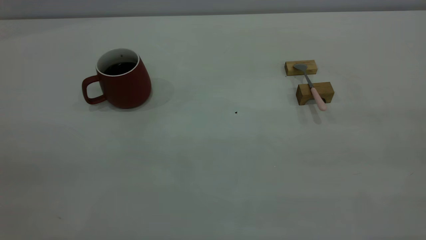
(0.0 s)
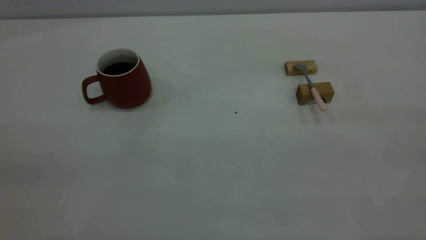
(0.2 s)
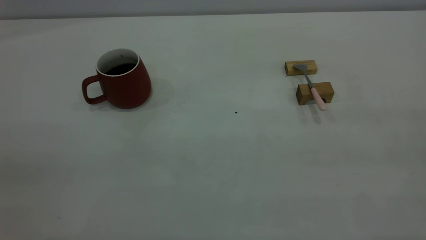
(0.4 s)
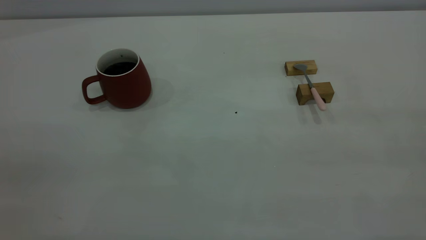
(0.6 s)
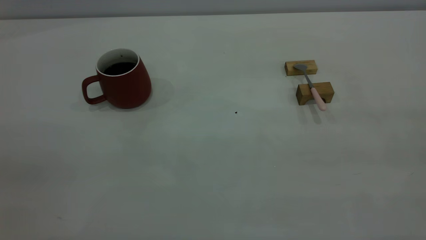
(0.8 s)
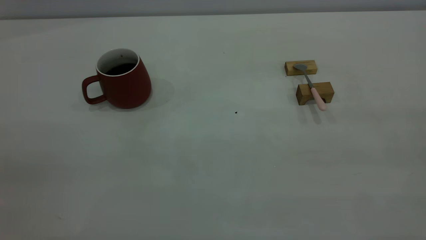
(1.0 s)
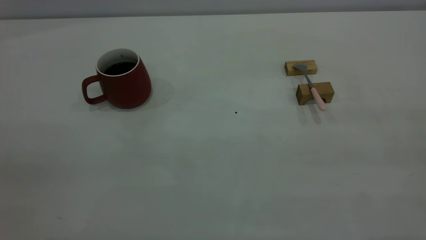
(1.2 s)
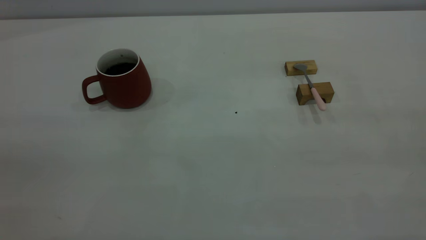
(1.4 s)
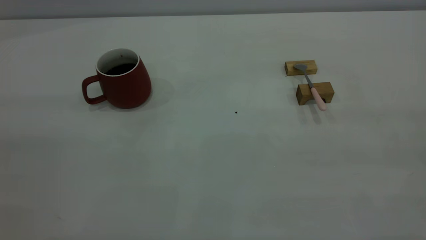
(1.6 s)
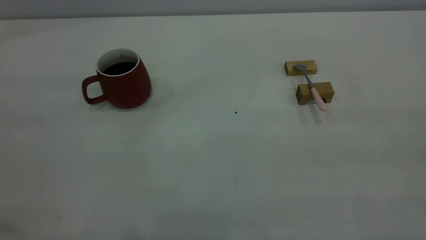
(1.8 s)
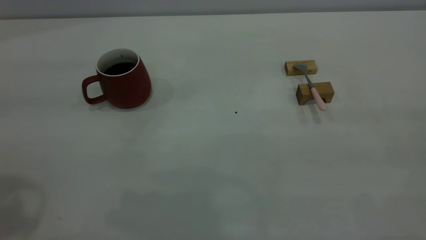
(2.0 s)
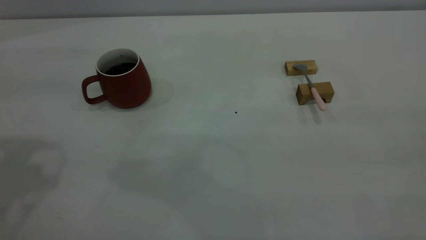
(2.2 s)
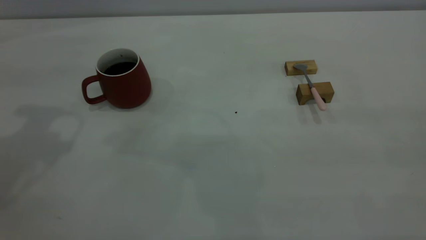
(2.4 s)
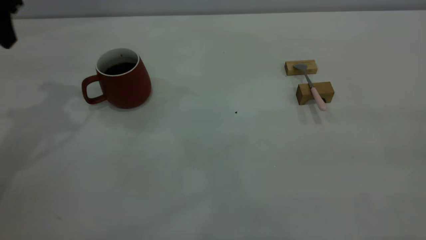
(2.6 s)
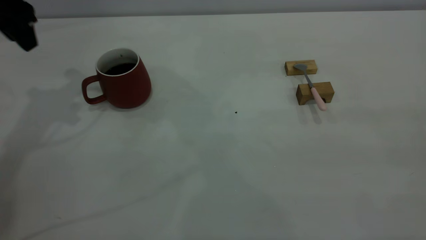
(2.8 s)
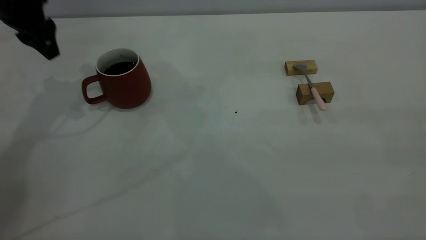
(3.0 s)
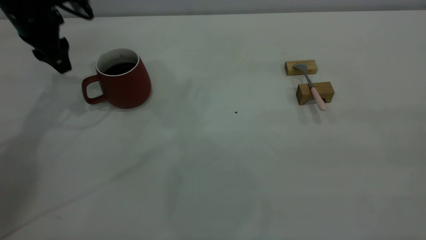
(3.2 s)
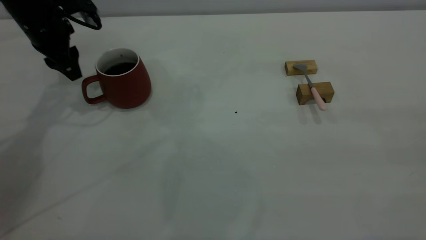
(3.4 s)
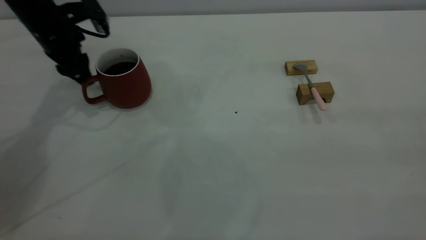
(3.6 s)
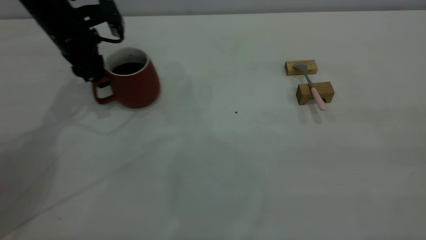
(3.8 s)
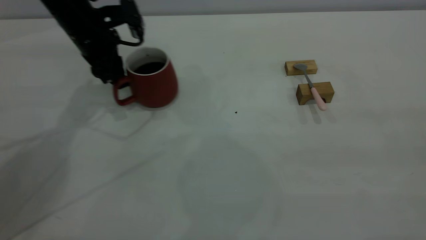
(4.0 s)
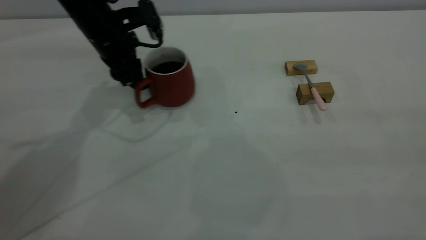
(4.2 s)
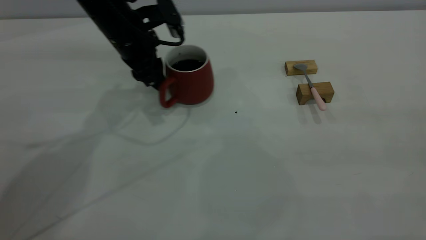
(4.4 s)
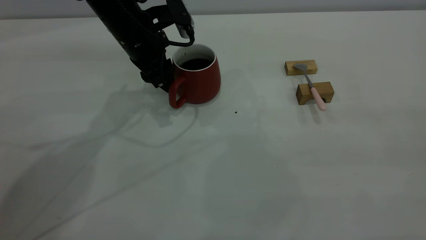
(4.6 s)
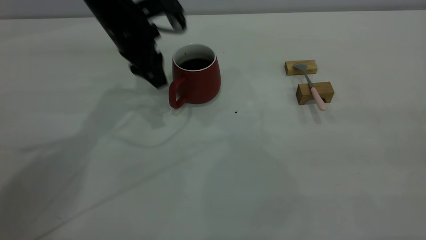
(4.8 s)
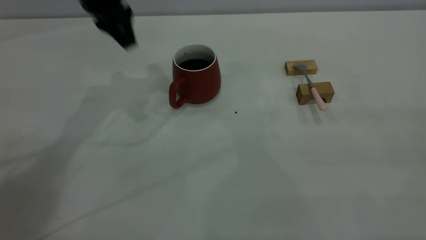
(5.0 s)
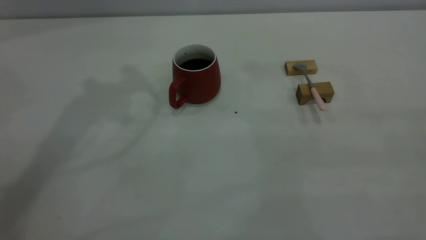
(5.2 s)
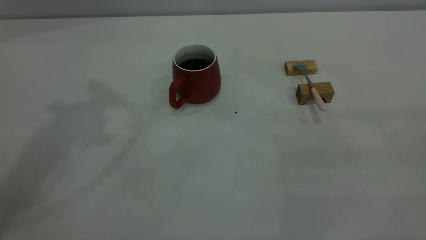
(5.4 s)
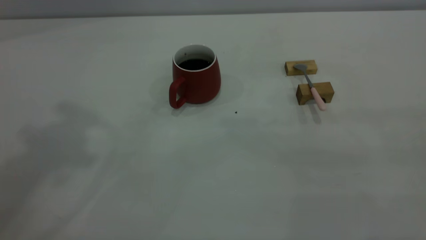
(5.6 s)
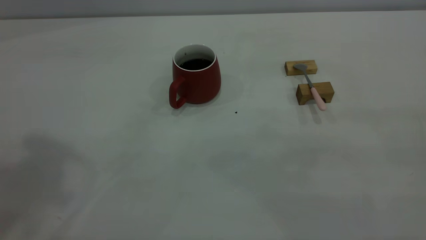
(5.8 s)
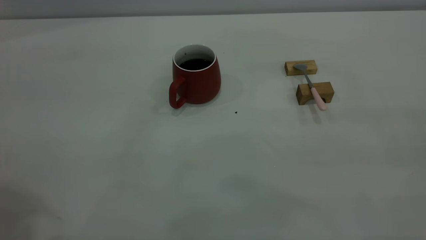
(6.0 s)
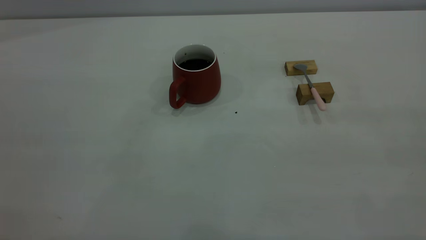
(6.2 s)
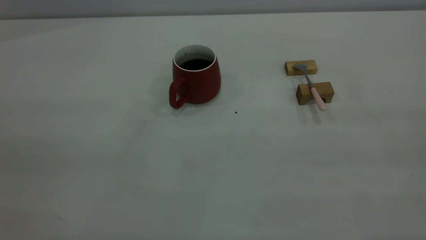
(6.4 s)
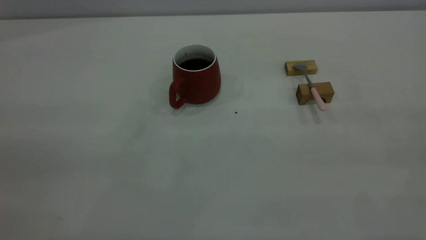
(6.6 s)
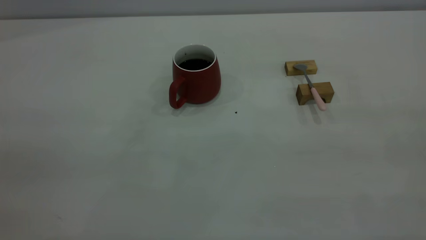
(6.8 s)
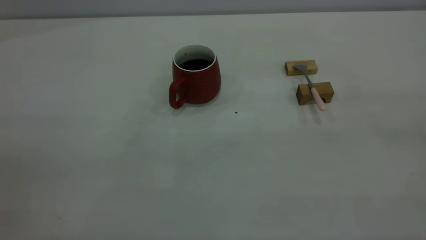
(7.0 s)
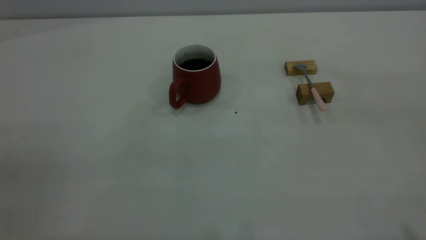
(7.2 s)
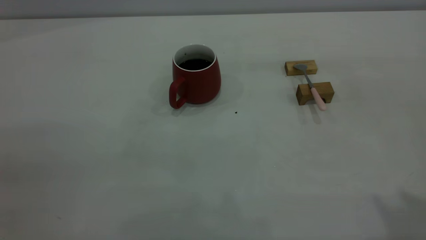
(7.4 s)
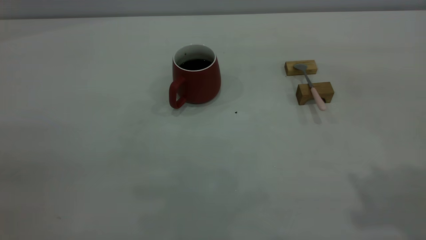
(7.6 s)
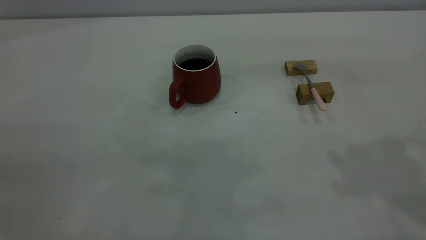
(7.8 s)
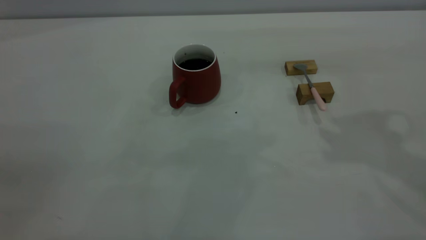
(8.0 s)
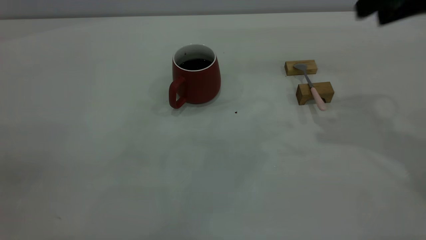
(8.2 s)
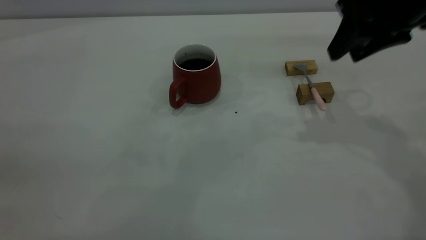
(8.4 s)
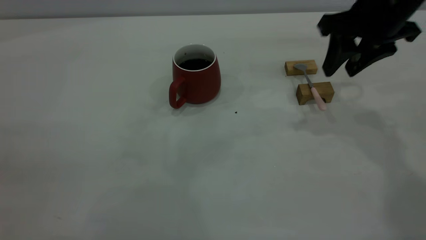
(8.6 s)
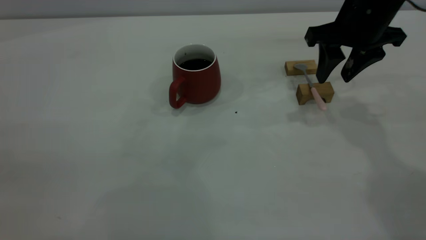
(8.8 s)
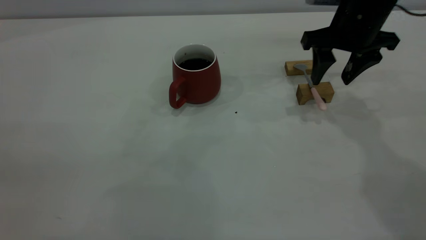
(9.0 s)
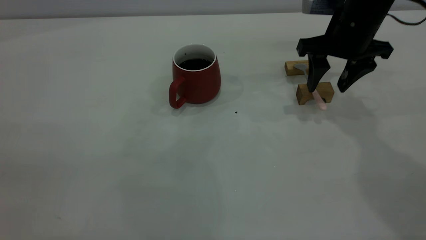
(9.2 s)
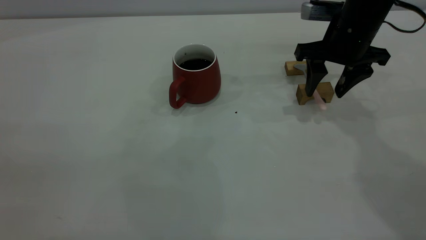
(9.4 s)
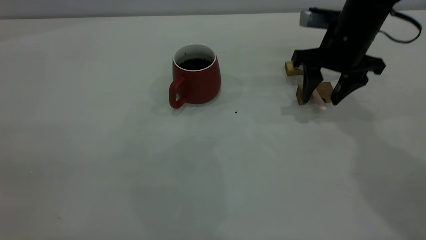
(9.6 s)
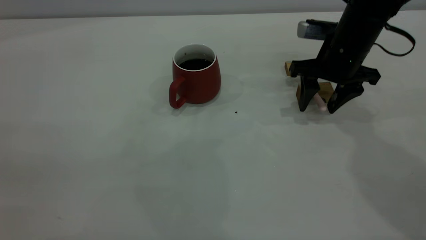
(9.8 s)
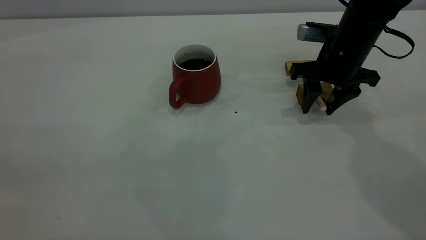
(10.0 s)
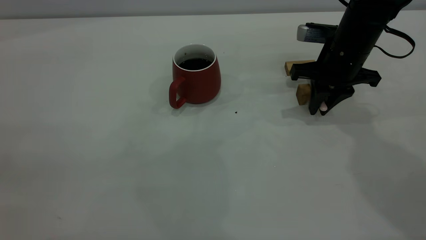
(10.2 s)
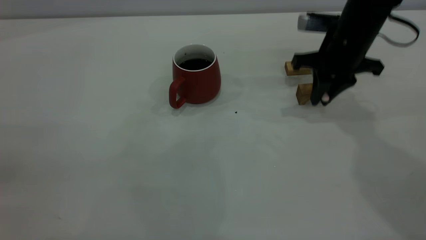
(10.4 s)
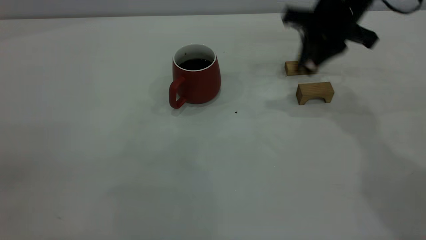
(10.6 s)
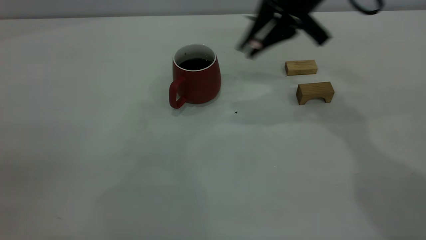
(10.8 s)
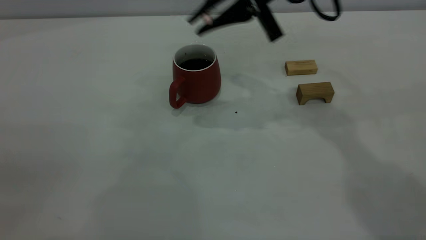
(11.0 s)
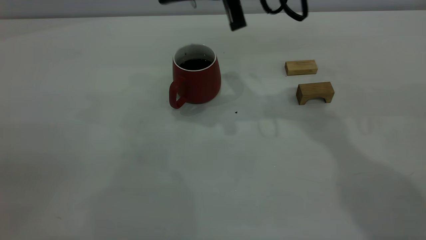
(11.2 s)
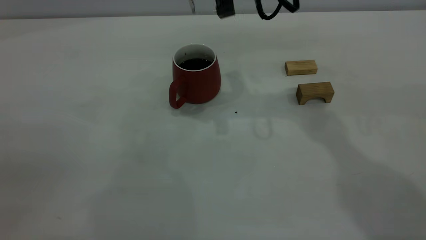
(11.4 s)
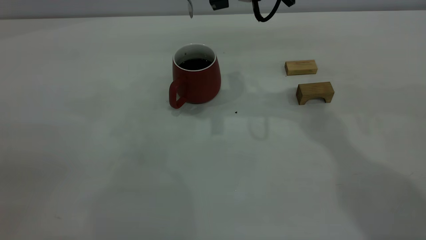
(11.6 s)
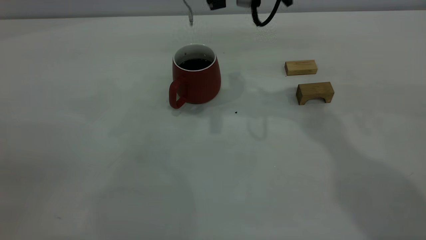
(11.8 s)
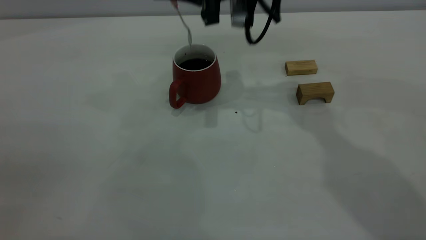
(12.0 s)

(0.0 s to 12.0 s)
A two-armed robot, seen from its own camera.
Step, 0.0 s - 4.8 s: Move the cup with coffee to the center of view.
Step, 5.0 s - 10.4 s: Pick up the spoon.
1.6 s - 3.0 s: The left gripper shifts roughly 40 cm forward and downward.
3.0 s - 4.4 s: The left gripper shifts some 15 cm to the right and downward.
4.4 s - 6.0 s: The left gripper travels backward and upward by some 40 cm.
7.6 s - 9.0 s: The right gripper shifts approximately 30 cm forward and downward.
9.0 s - 10.4 s: The right gripper closes up.
10.4 s - 12.0 s: The right gripper goes some 15 cm to the left.

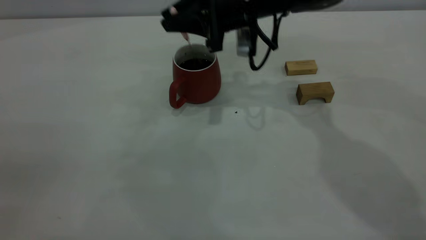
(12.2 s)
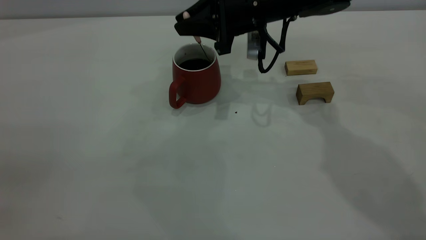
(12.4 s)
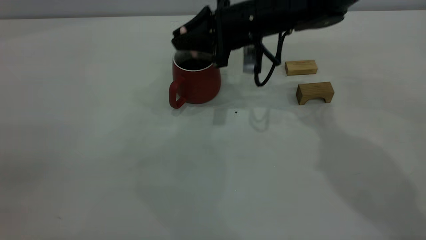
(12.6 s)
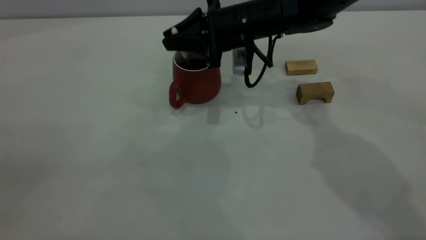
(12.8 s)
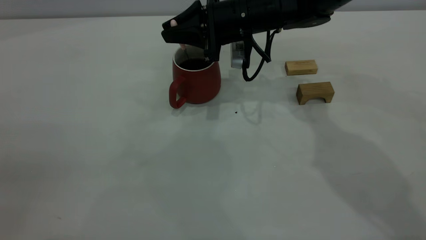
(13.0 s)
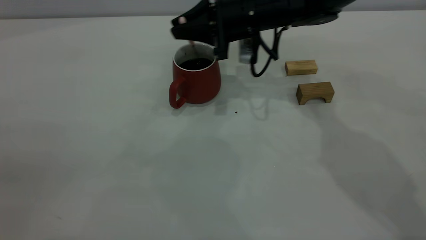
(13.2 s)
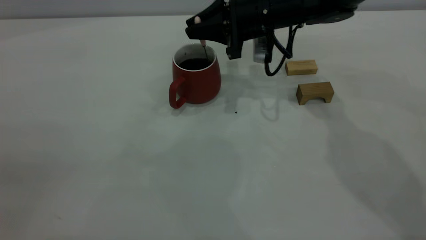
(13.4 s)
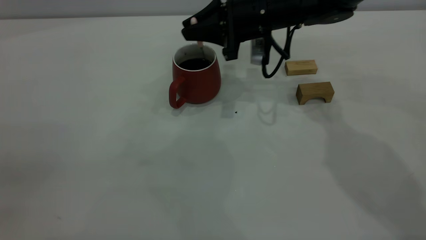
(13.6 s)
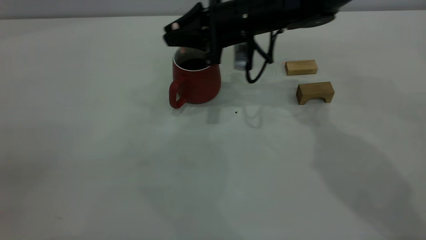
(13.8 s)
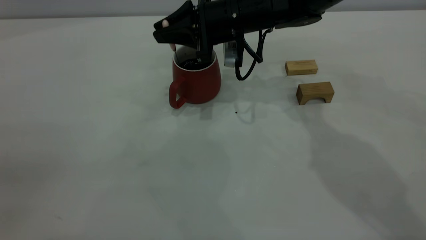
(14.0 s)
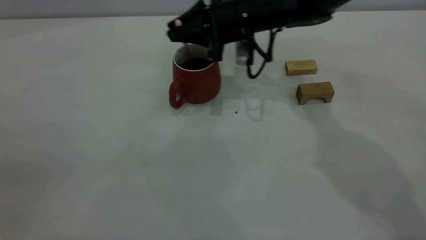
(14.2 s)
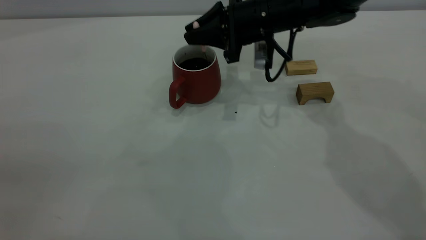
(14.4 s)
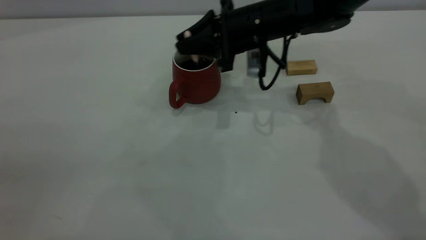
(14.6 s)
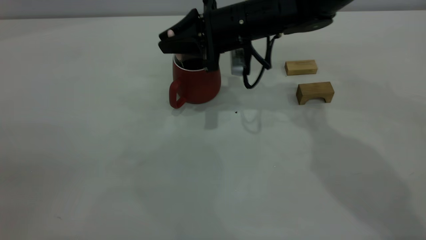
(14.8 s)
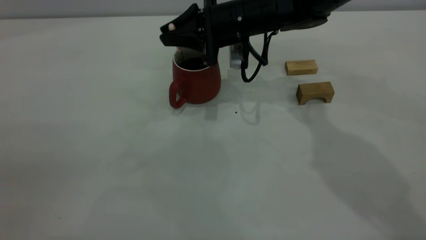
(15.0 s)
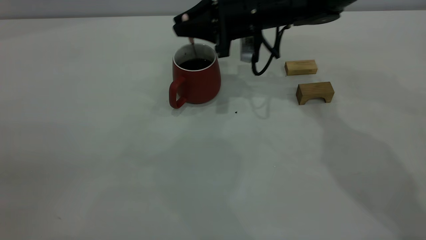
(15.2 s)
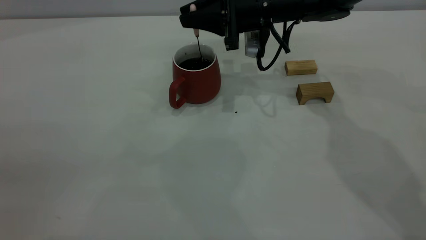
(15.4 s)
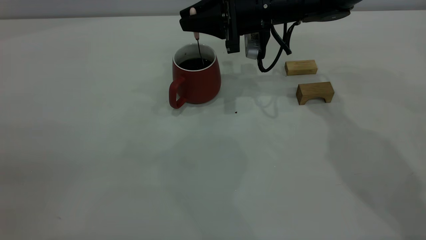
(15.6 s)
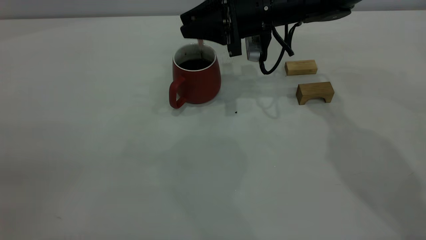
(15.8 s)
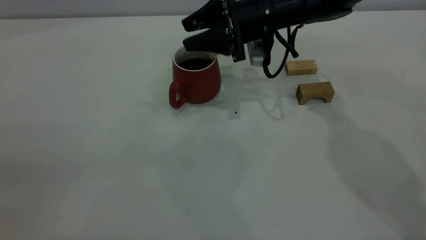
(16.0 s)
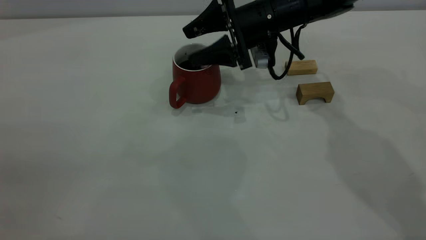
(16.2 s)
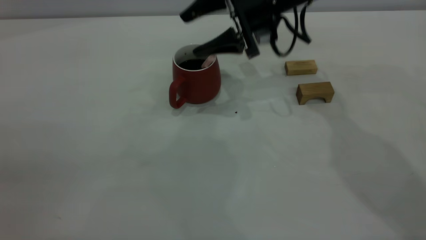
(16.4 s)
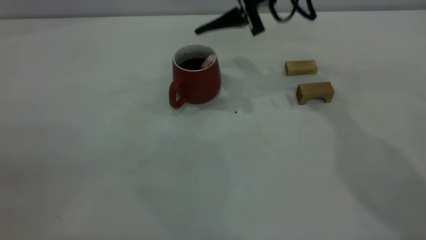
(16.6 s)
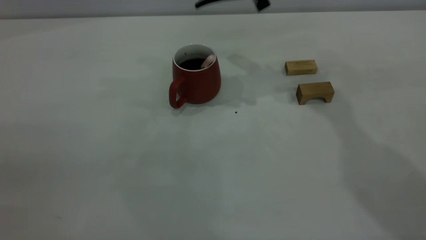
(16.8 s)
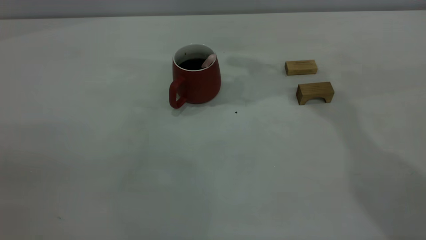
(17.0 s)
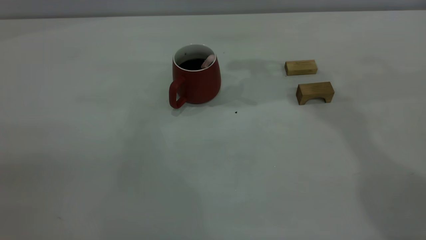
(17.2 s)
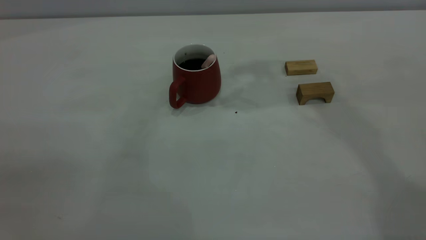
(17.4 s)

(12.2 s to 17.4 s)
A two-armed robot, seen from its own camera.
Step, 12.2 s - 16.6 s: Stir the coffee in the cup.
12.2 s - 15.6 s: The grippers stay close to where they were, moving slightly.
15.6 s - 17.4 s: The right gripper heads upward, covering roughly 25 cm, and opens and closes again.
